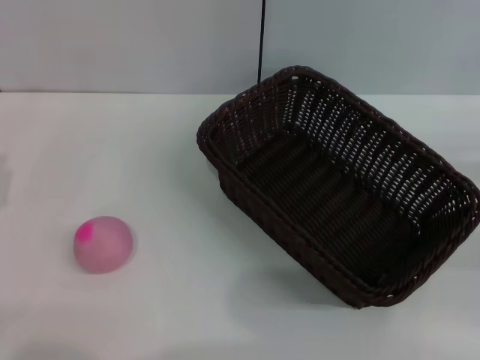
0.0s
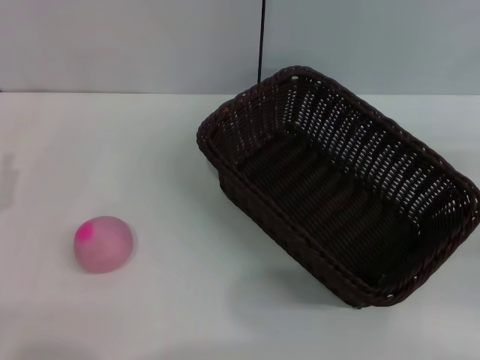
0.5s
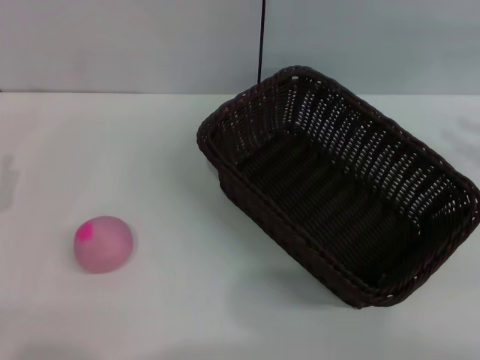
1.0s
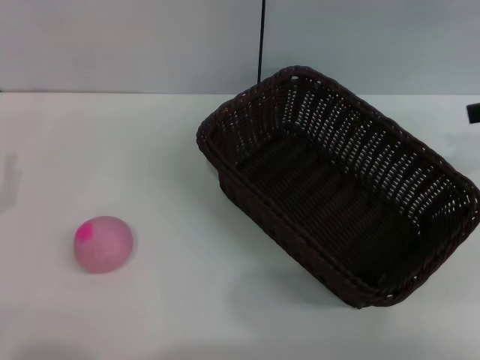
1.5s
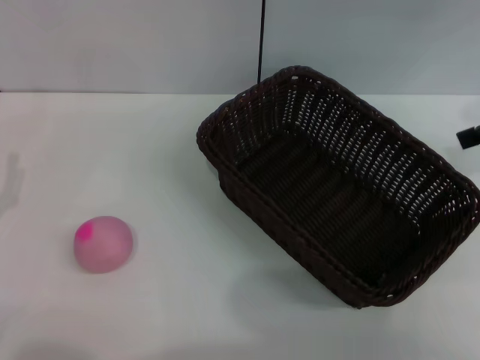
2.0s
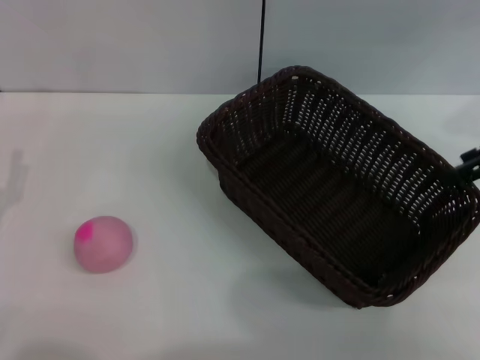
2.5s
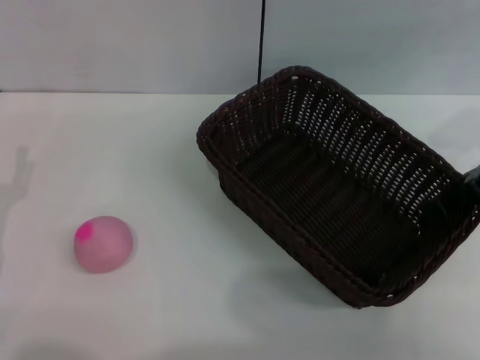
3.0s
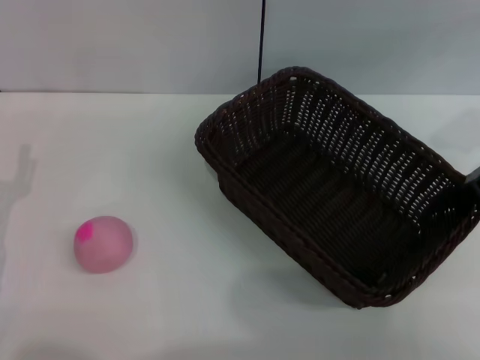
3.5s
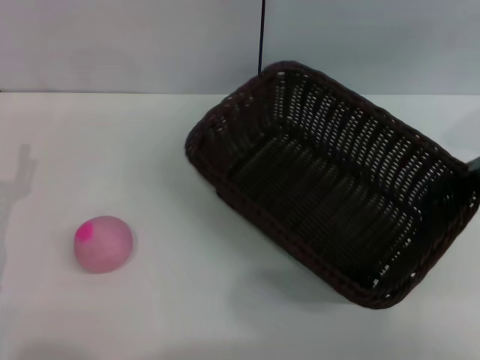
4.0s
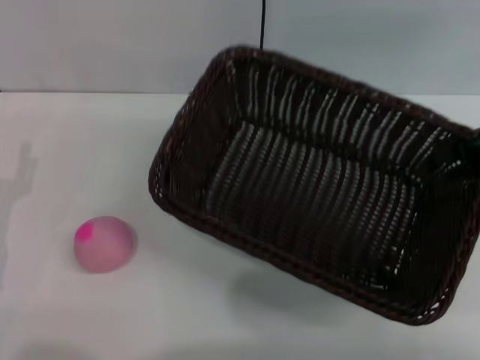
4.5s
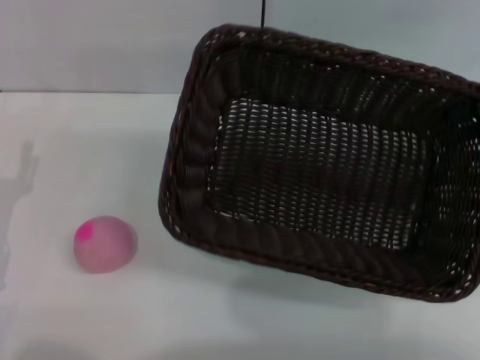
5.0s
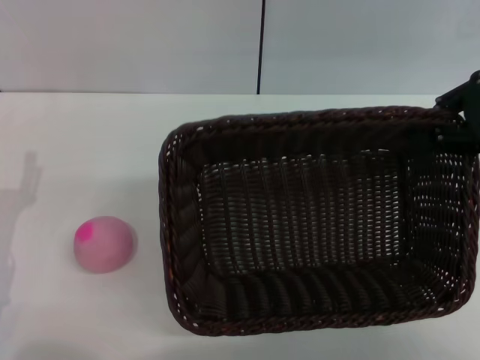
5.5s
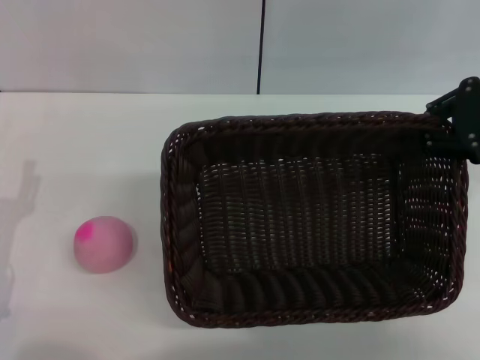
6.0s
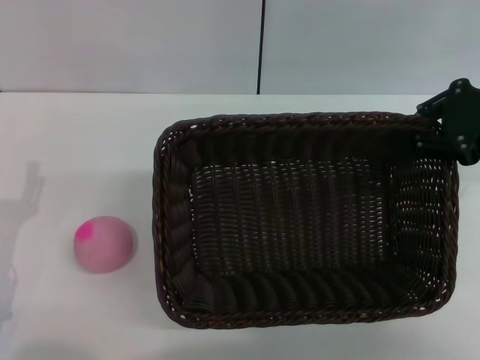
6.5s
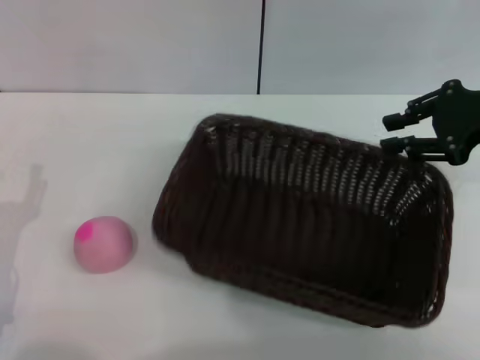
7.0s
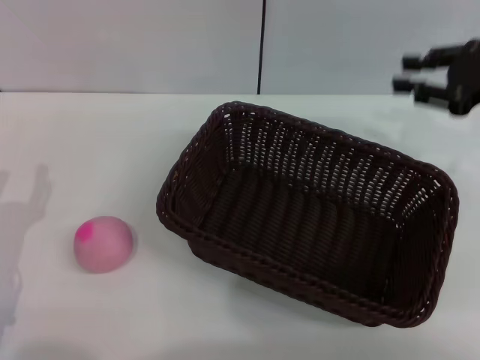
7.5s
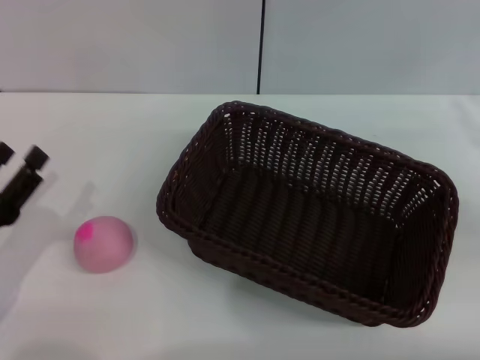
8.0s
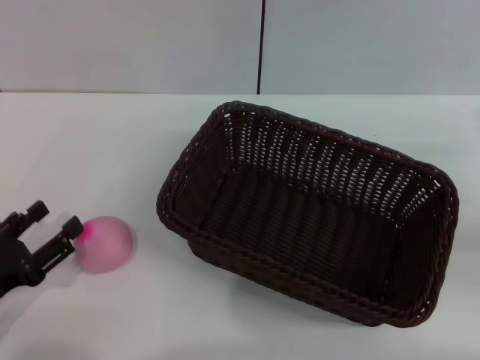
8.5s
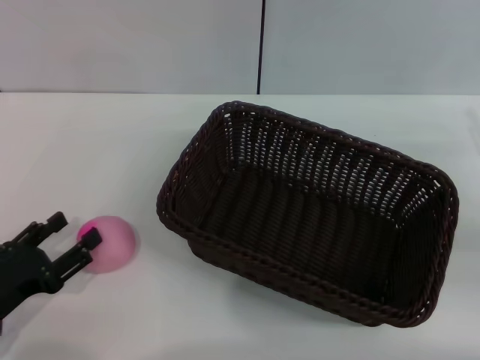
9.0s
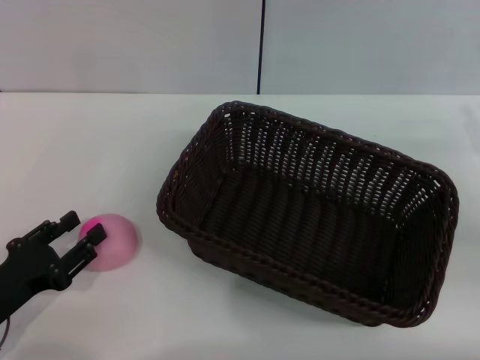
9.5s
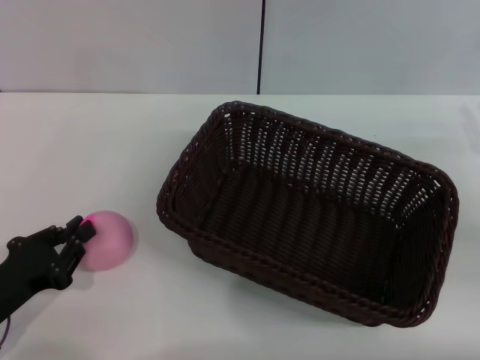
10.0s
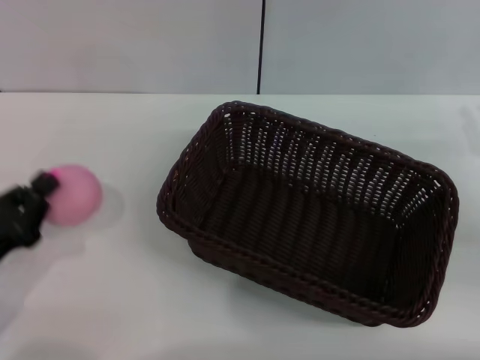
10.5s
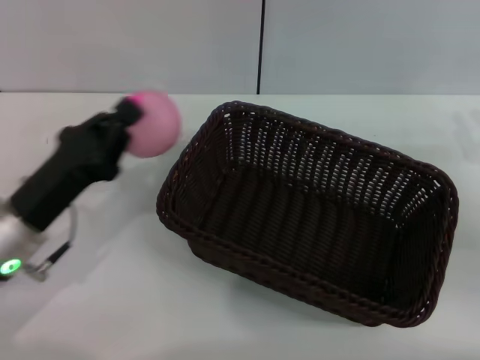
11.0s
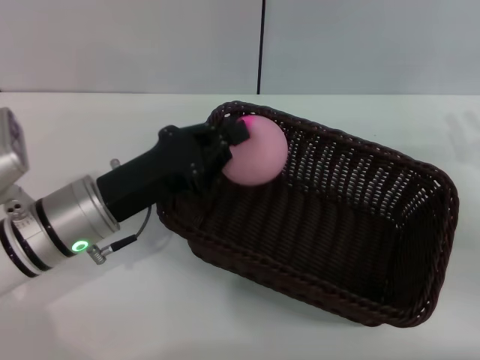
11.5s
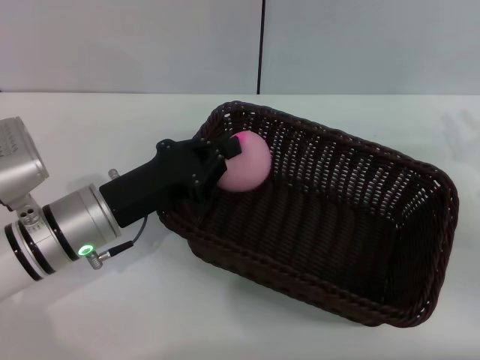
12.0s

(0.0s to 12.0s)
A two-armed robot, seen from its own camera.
Step, 0.0s - 4.0s: Pick up the dark basket with the right gripper.
Step, 4.5s - 7.0s: Place the dark basket in the center of view with the right gripper.
Step, 7.5s - 10.5s: Pick up the peach with the left gripper.
0.0s - 2.0s: The right gripper travels upward and forward by approximately 20 cm, and opens up.
2.0s - 4.0s: The right gripper shifts roughly 5 cm downward, and closes up.
6.0s - 8.0s: The right gripper travels downward, to the right and backward by about 10 cm.
8.0s - 10.0s: The left gripper closes its fingers.
10.0s - 12.0s: The left gripper is displaced to the right and forward by approximately 15 cm.

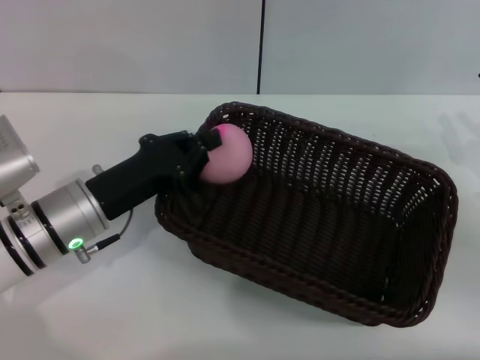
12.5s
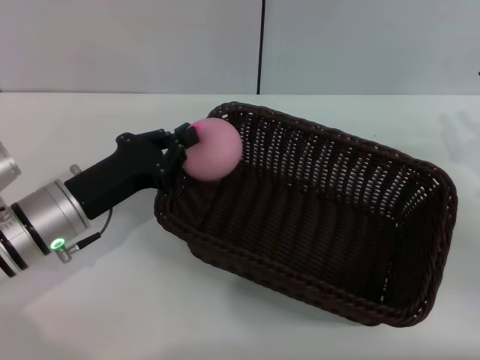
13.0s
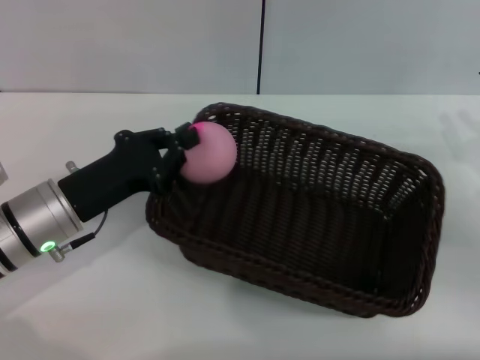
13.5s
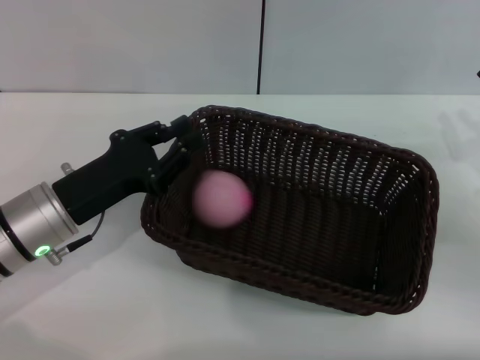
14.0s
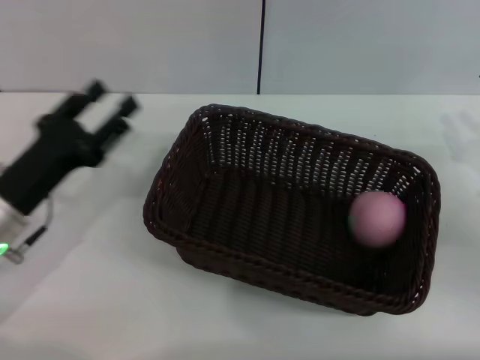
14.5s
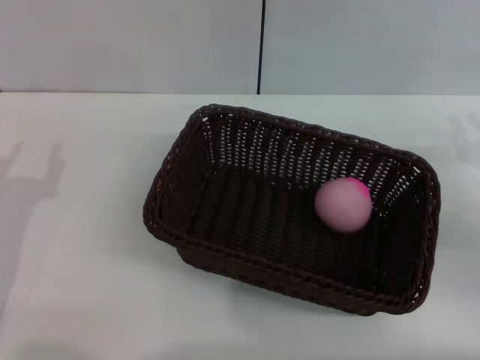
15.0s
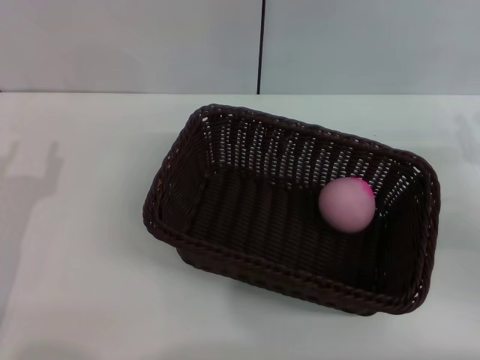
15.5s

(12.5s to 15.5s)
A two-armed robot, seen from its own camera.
12.5s - 14.0s: There are only small adjustments of the grippers.
14.0s - 15.5s: The left gripper shifts some 10 cm to the left and backward, and opens up.
